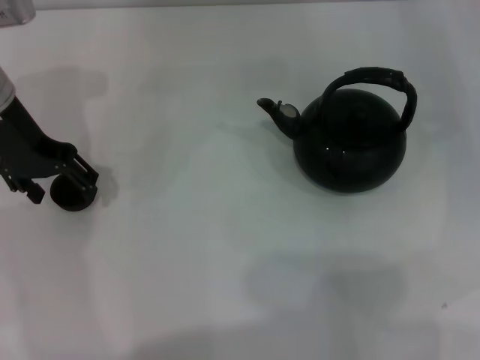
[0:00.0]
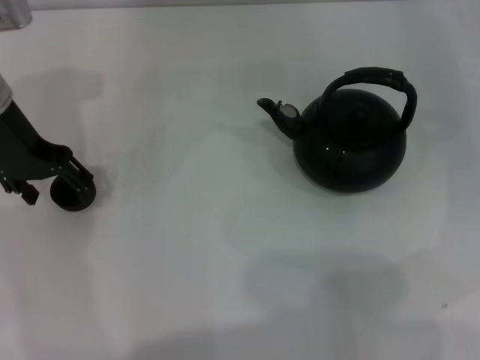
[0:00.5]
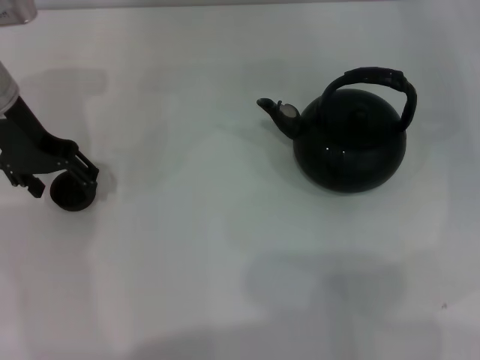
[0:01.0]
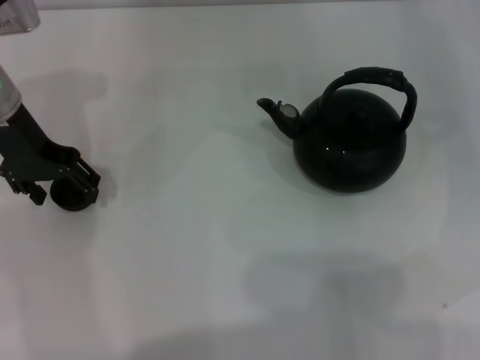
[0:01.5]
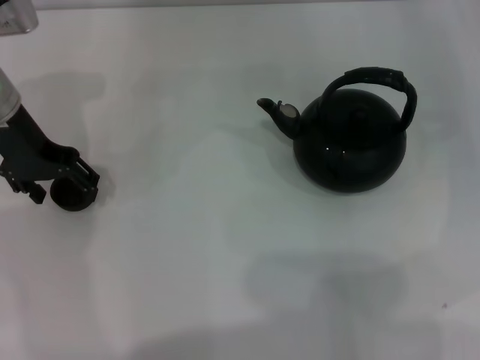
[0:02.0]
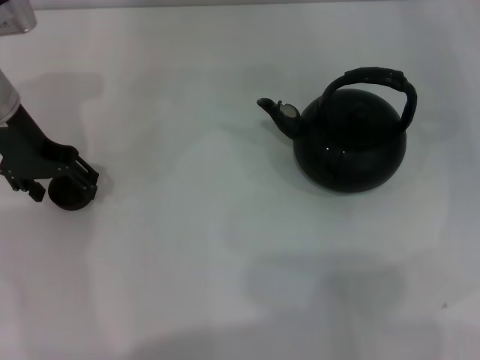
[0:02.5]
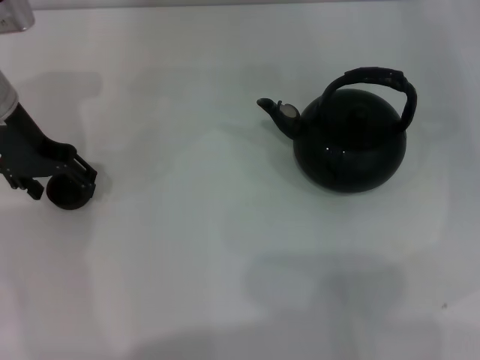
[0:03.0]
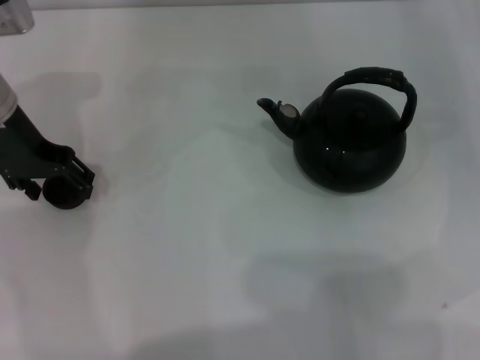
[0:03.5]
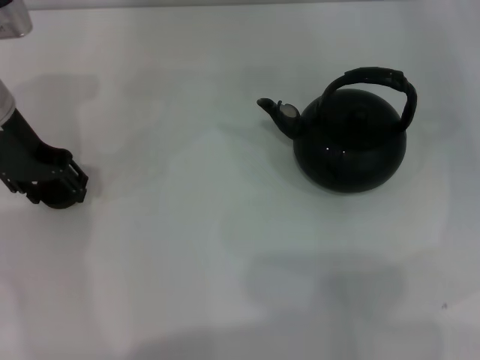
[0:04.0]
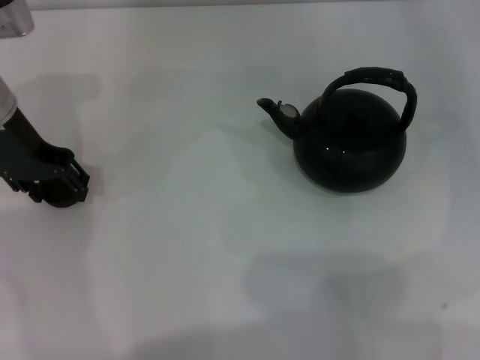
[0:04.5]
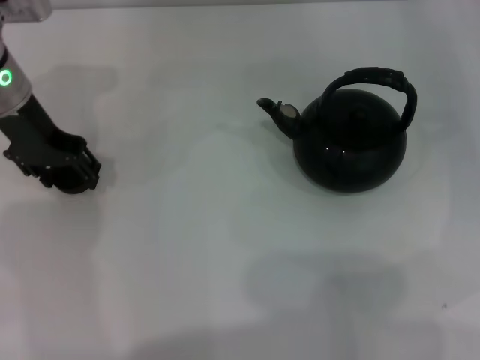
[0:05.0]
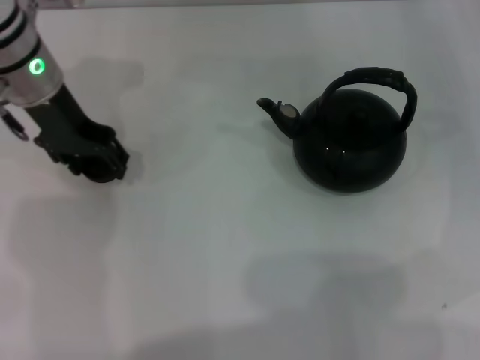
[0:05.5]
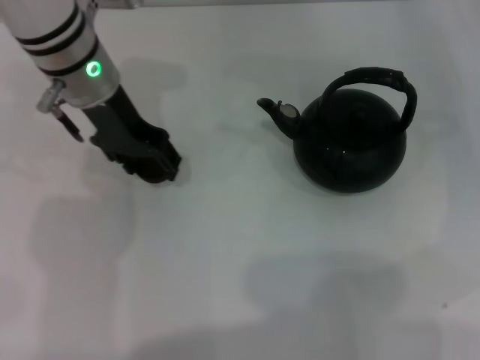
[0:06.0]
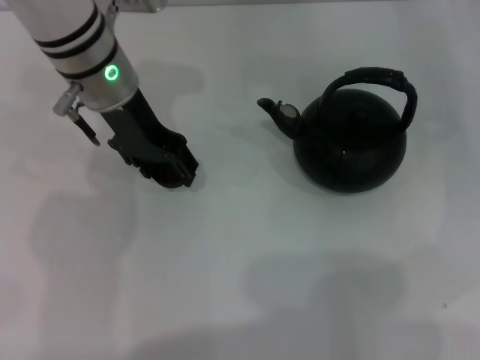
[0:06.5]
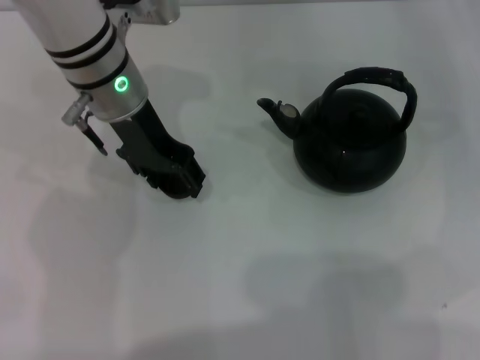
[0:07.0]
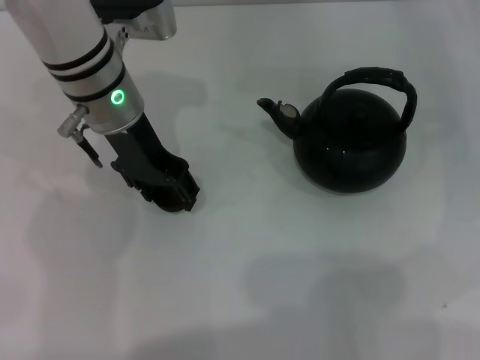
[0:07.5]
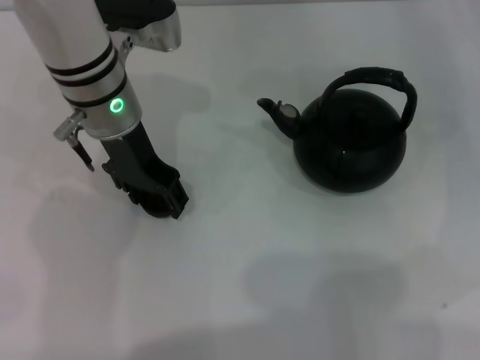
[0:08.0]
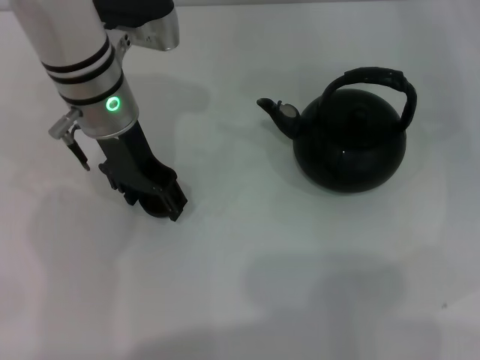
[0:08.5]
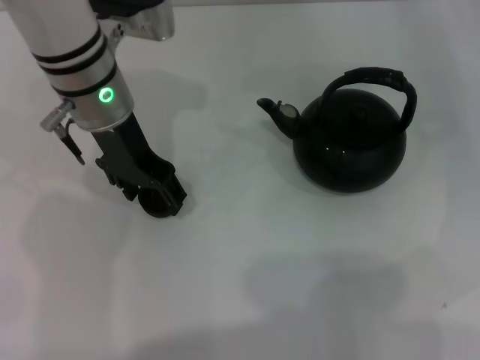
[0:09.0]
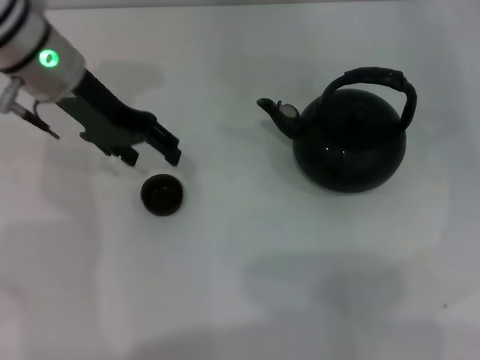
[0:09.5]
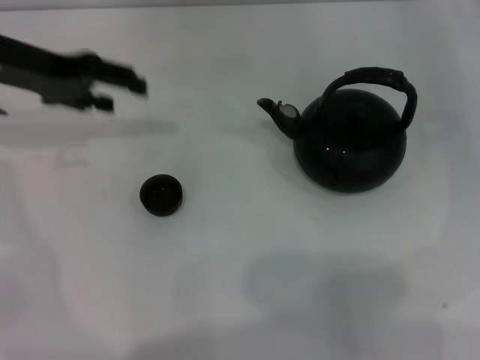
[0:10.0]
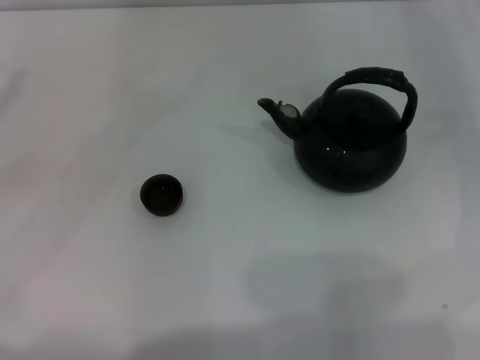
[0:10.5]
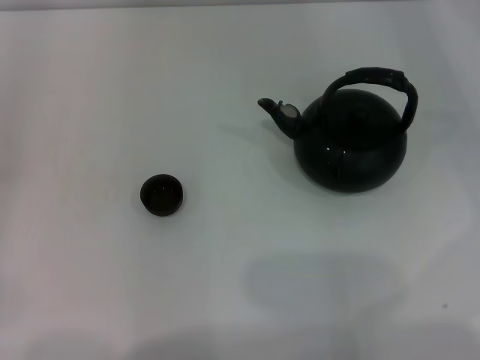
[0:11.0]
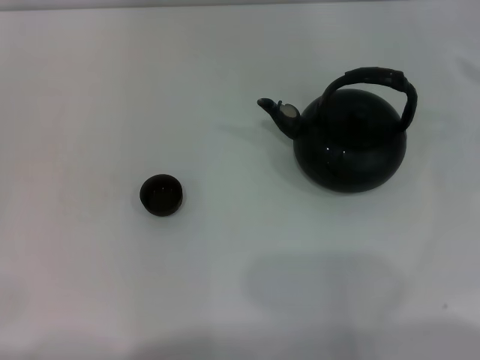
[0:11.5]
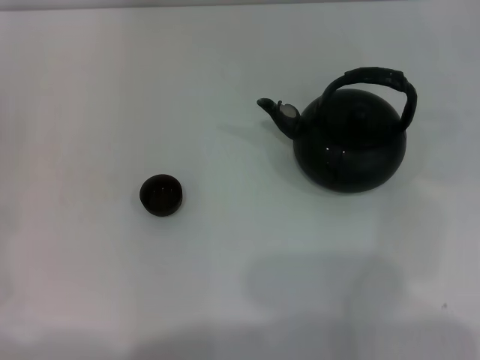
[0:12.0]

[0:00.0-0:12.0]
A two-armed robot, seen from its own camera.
Task of the whole recording: Grasp the handle of the teapot with one hand and pour tea into the teacup.
Step, 0:00.0 to 0:05.5: Pick up the teacup with the left gripper.
Step, 0:06.0 to 0:09.0: Place the teacup in the center of view with the left gripper.
0:00.0 to 0:02.0: Neither gripper changes place.
0:02.0 to 0:04.0: Both grippers stay put.
0:04.0 to 0:06.0: The left gripper moves to the right, some 10 cm, and closes.
0:06.0 to 0:08.0: The grippers stay close to where they were, moving slightly.
0:08.0 to 0:10.0: The left gripper moves to the left, roughly 15 cm.
0:10.0 to 0:12.0: The left gripper is displaced downward, to the left and backward by some 25 cm.

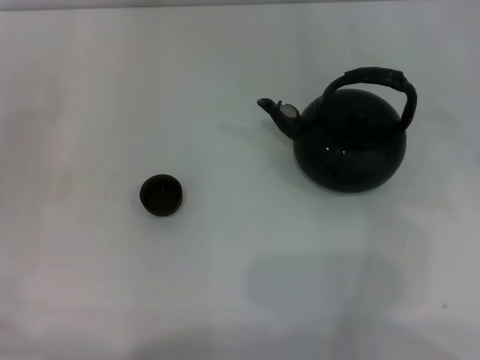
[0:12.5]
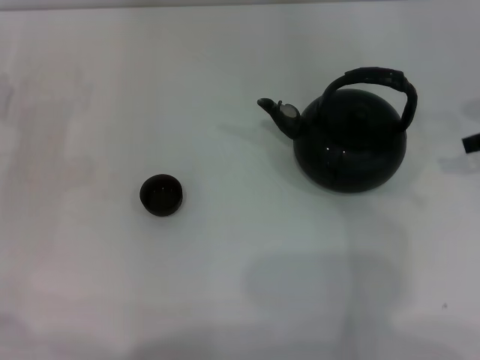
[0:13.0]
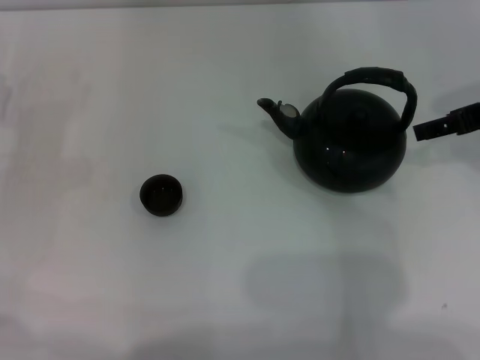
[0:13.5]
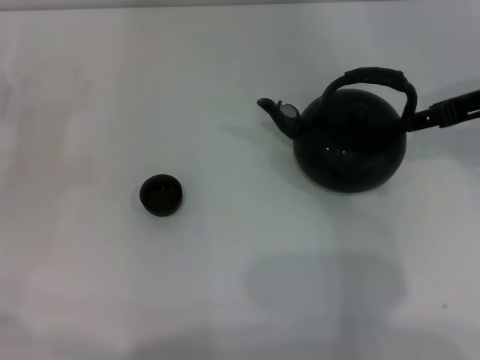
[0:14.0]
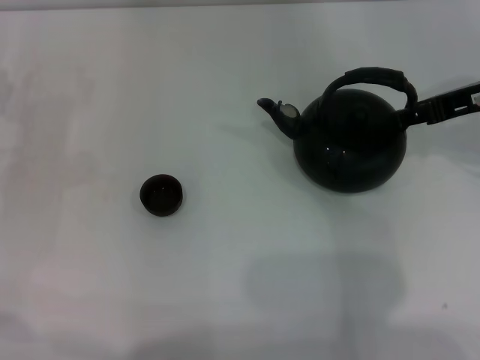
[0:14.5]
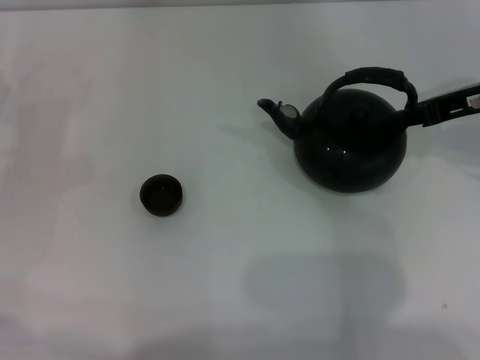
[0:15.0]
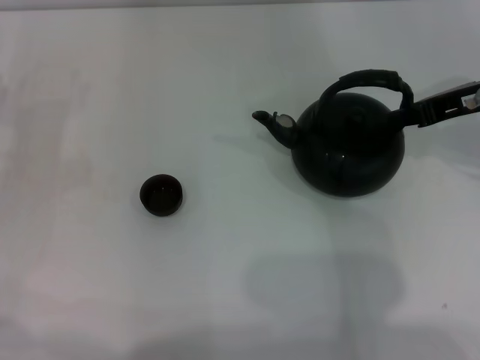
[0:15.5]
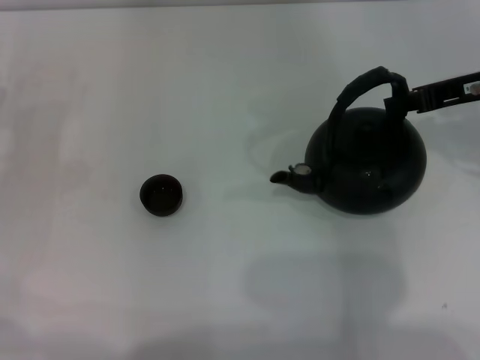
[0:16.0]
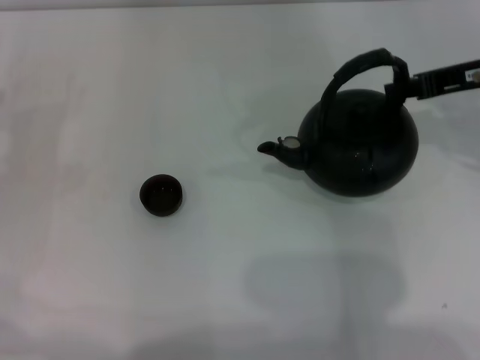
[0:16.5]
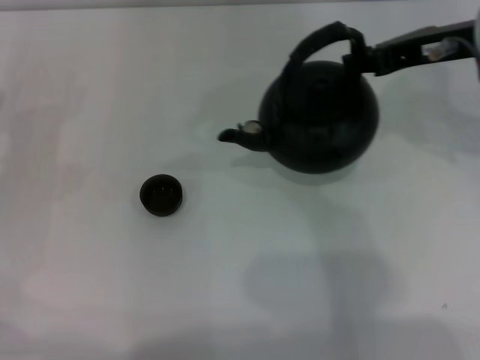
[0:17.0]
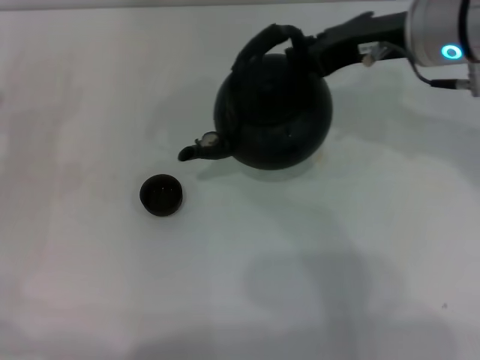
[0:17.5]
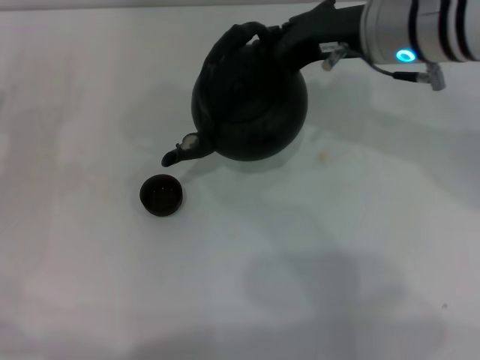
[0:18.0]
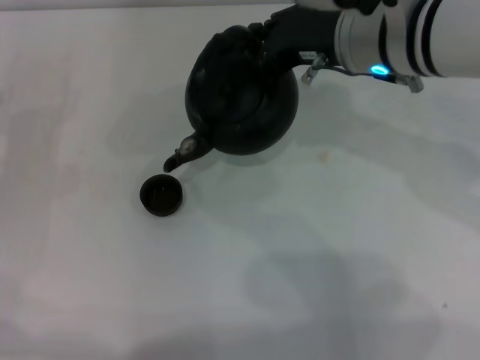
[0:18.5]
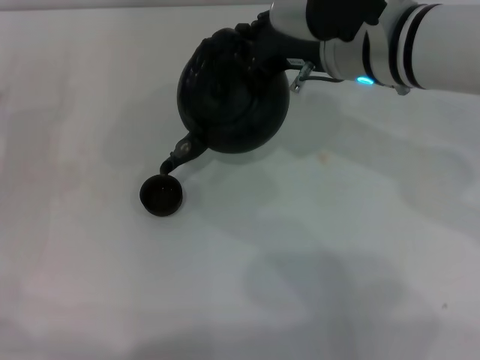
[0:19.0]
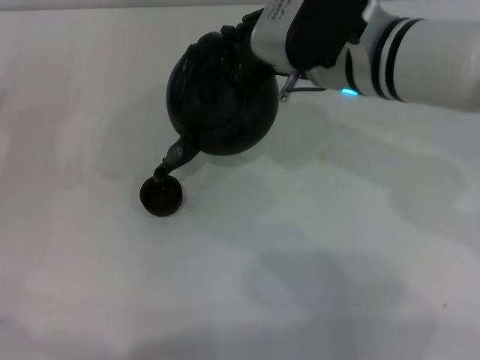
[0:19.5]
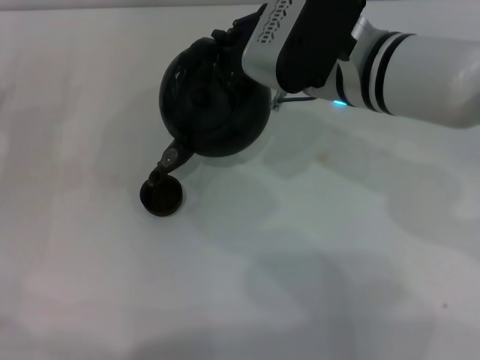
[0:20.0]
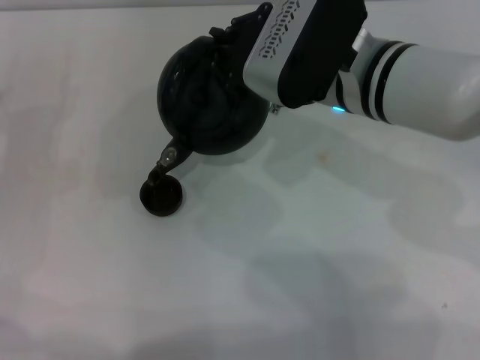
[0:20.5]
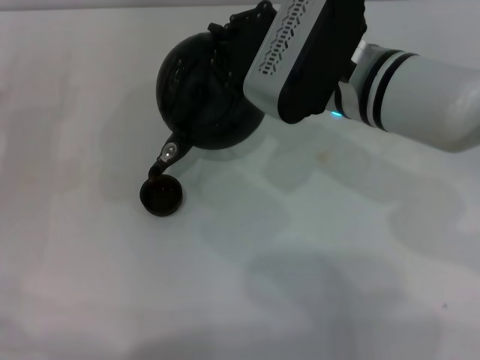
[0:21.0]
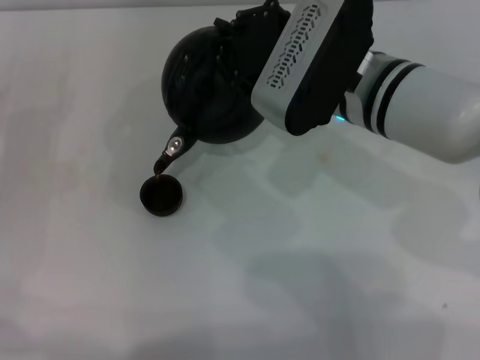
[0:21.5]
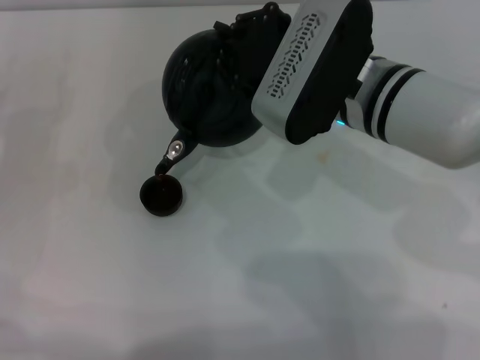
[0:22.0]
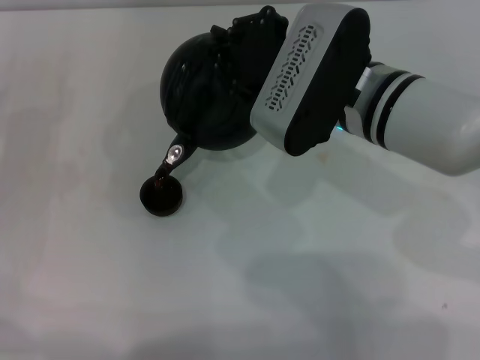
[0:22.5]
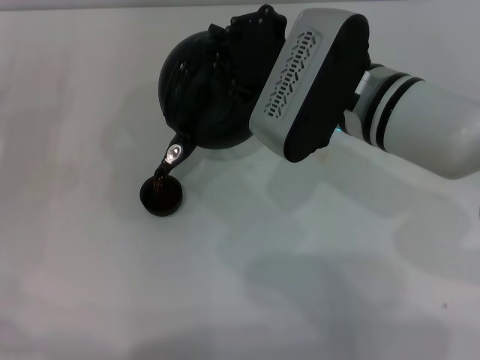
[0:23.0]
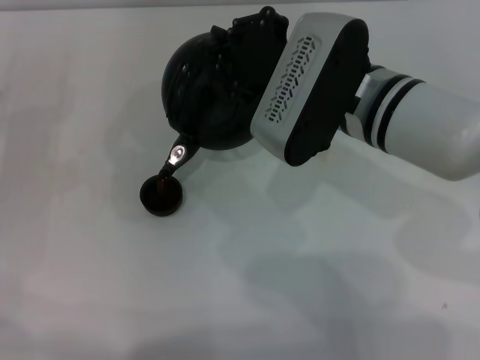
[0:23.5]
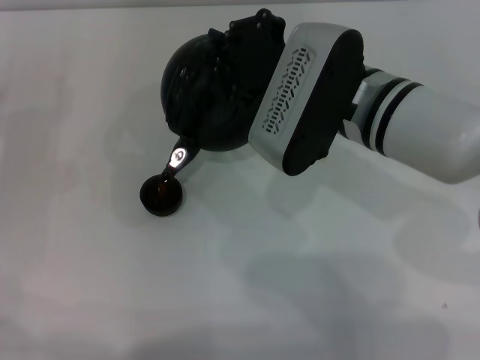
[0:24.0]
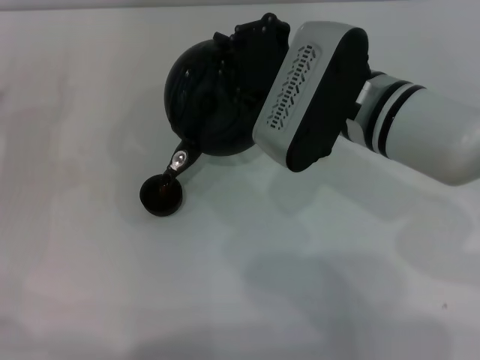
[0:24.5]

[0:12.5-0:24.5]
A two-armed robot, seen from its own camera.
Task of the whole recording: Grasp the handle of the teapot with one hand and pour tea into the teacup.
Step, 0:12.5 to 0:17.0: Pick up the teapot with the right gripper.
0:12.5 to 0:14.5: The right gripper shifts some 10 cm to the left.
0:14.5 to 0:16.5: The right gripper closes up.
0:16.5 to 0:18.5: The right gripper shifts approximately 15 cm to the left.
0:18.5 to 0:20.5: The grippers stay close to where they were, moving slightly.
0:20.5 to 0:24.5: The grippers stay close to where they were, moving slightly.

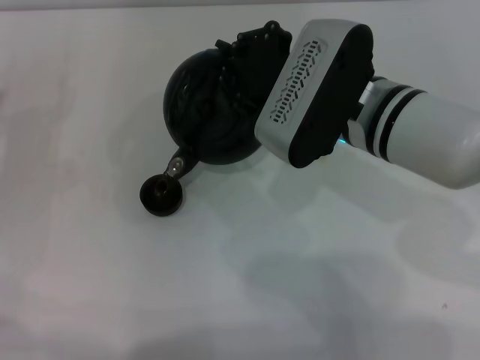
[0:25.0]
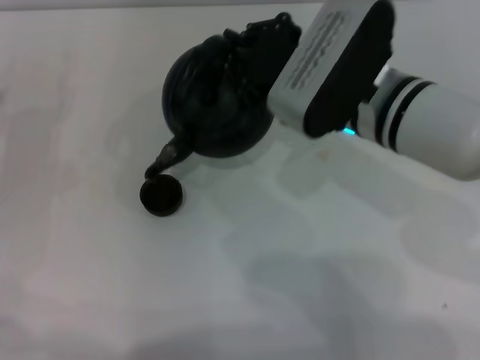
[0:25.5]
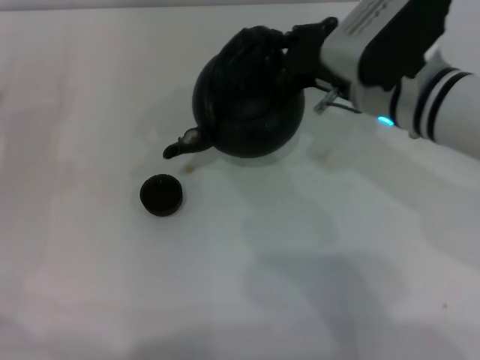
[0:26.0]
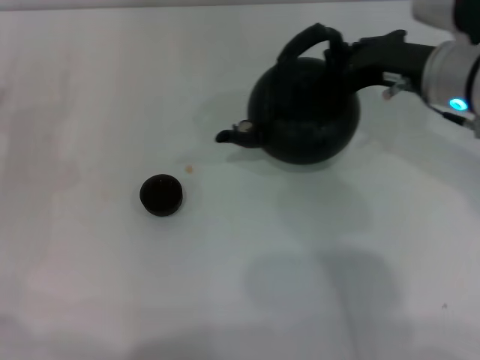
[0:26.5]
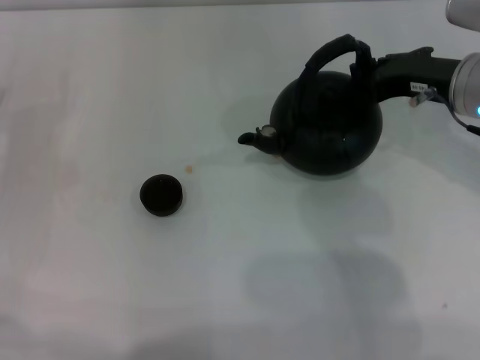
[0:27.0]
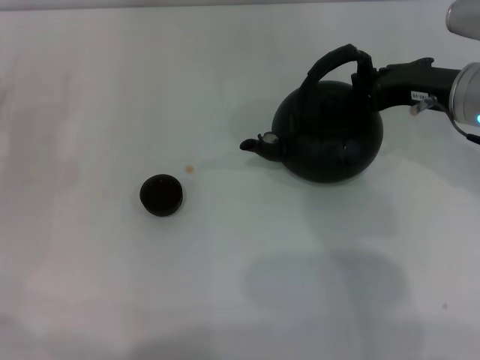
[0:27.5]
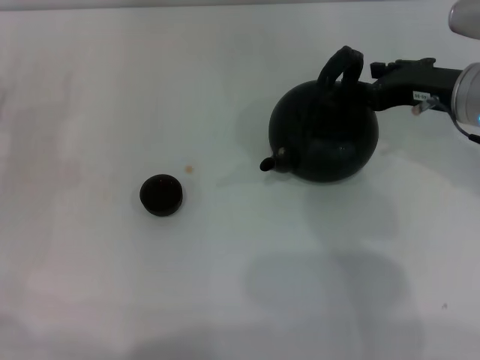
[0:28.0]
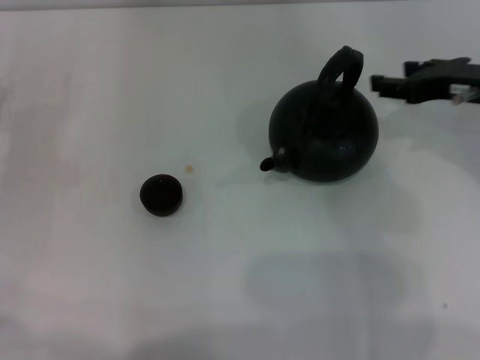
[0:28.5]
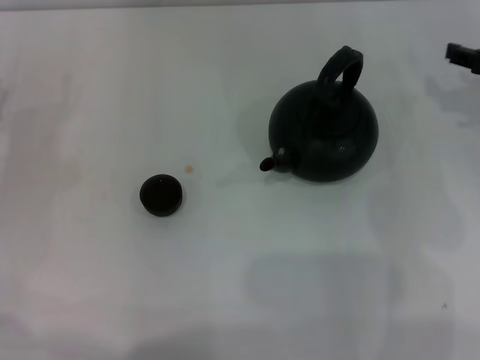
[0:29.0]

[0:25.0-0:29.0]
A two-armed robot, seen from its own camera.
Task of the whole recording: Grasp the handle of the teapot with one hand and pour tea into the teacup.
Step, 0:26.0 to 0:28.5: Put down the teapot with the right gripper.
0:25.0 to 0:27.0: The right gripper heads to the right, covering about 15 cm.
0:27.0 to 0:29.0: The right gripper is displaced to the right by approximately 10 cm, and opens its fingers.
